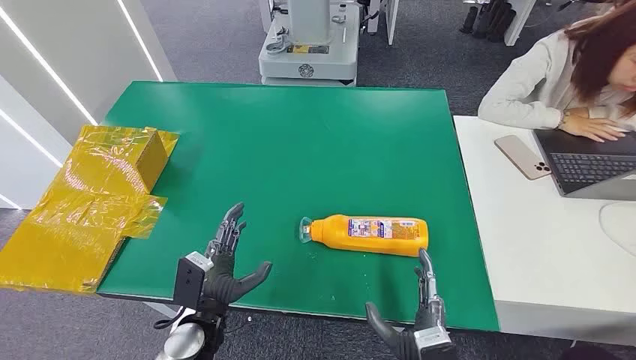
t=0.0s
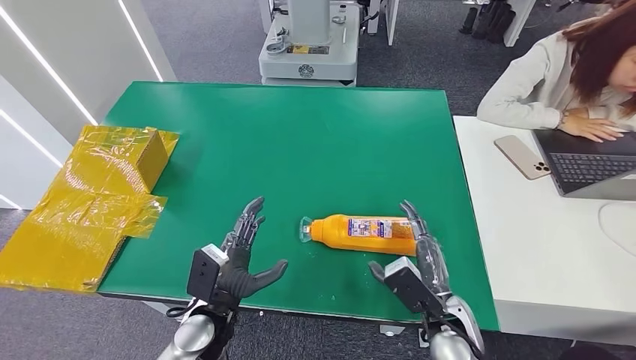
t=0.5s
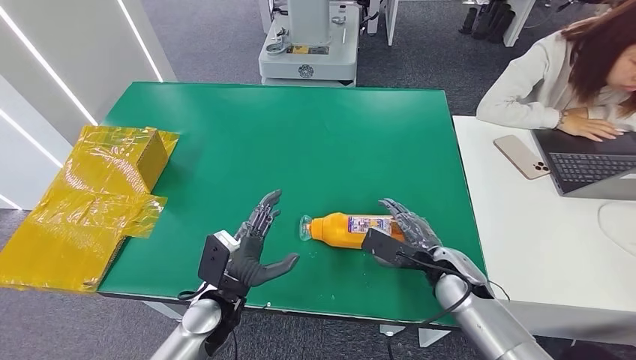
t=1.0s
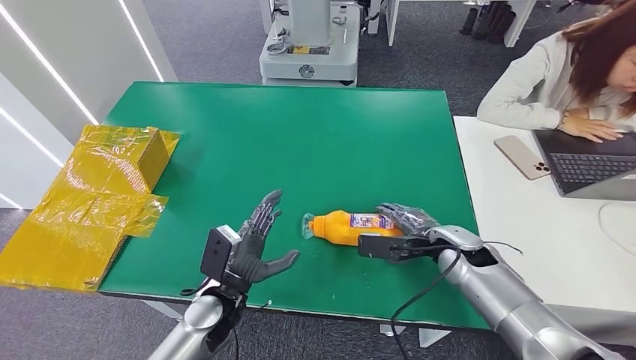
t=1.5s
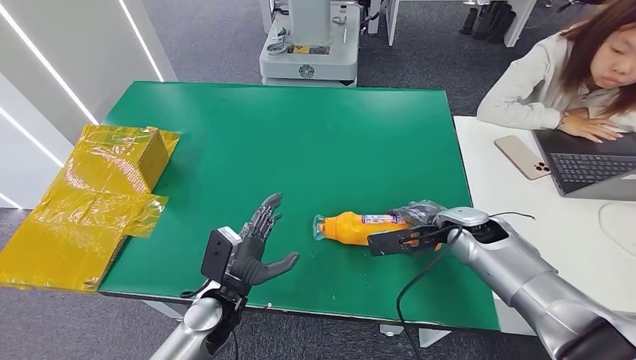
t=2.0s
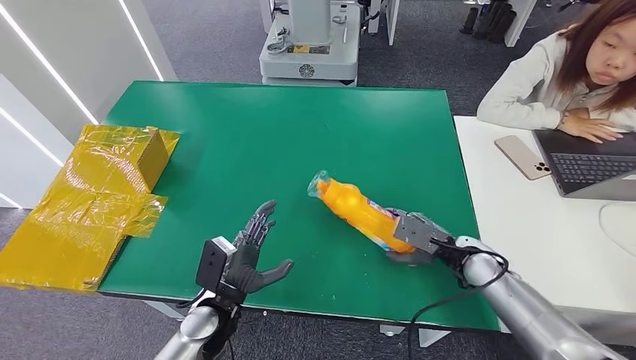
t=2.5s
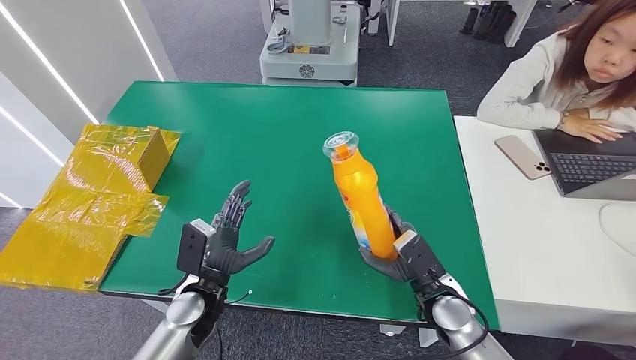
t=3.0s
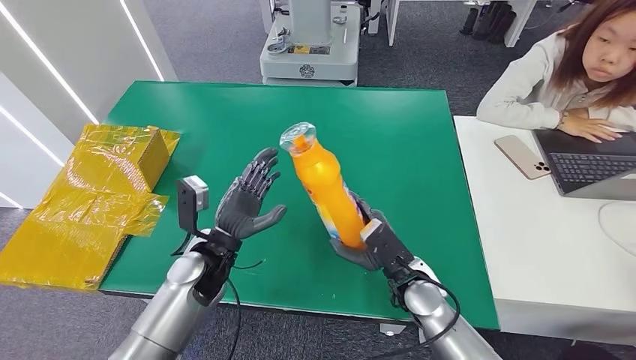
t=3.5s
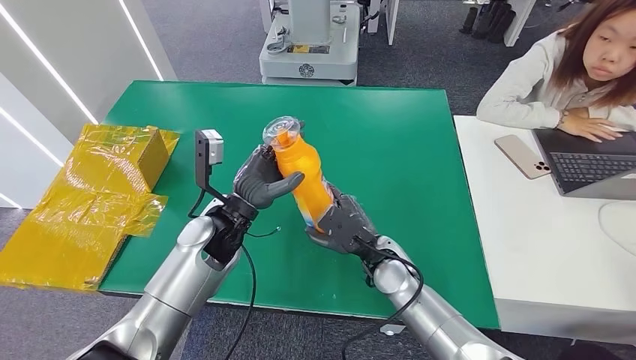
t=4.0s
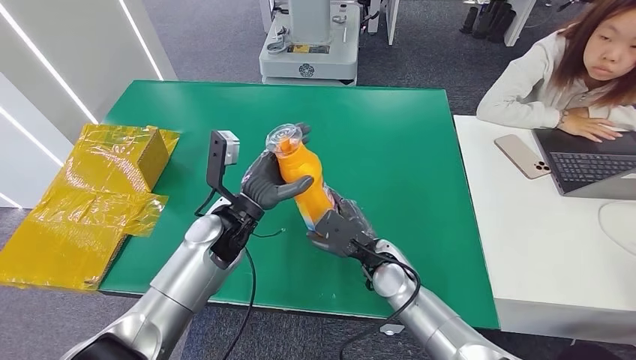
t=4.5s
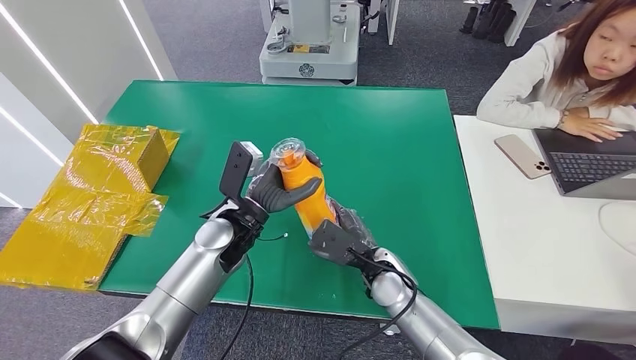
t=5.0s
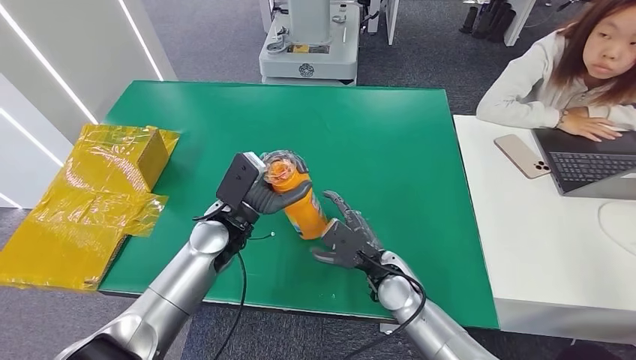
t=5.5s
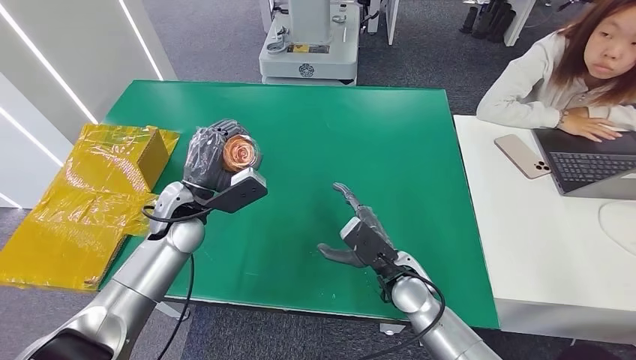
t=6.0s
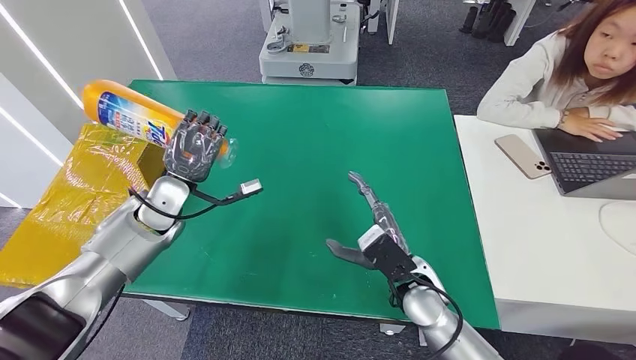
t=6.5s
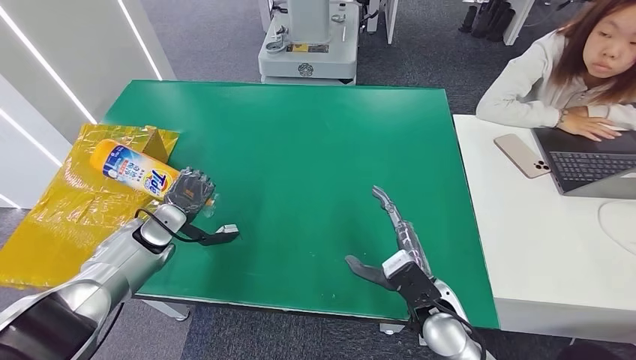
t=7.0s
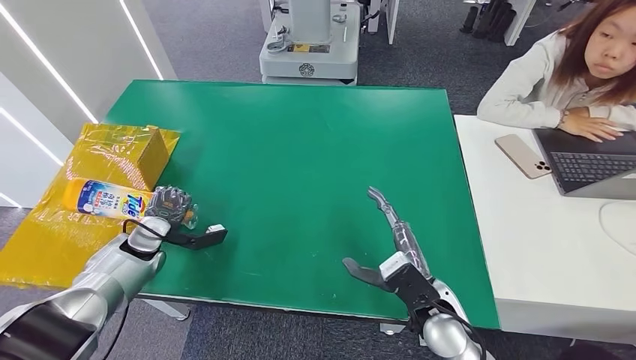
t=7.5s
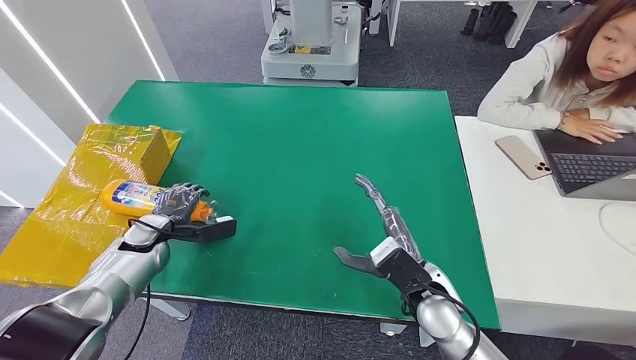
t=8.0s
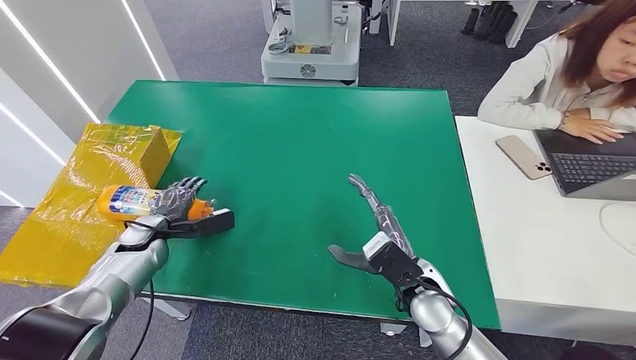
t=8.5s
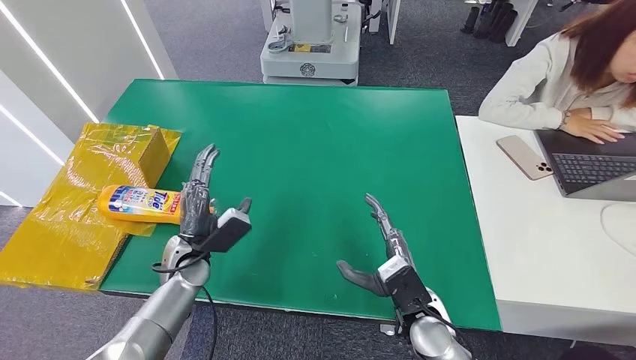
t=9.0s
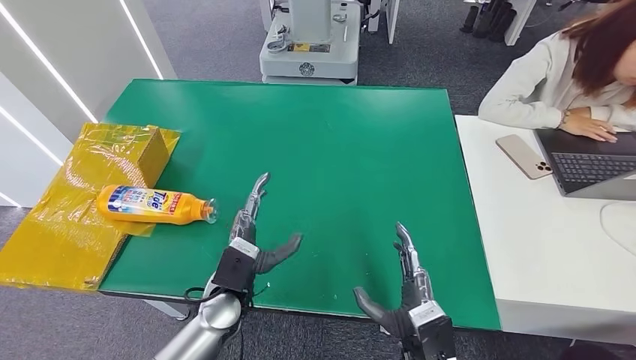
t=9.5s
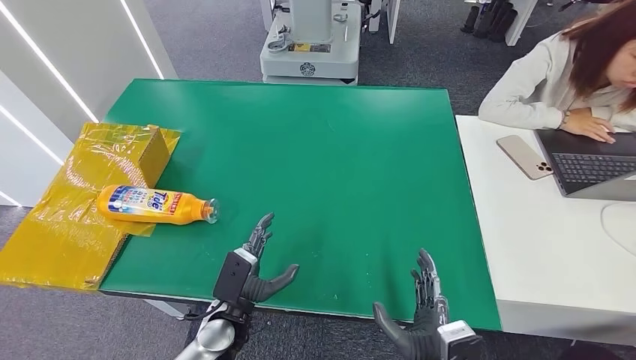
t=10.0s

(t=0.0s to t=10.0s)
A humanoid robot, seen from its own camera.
Step, t=0.0s - t=2.5s: Pick up the bottle from the table.
Step, t=3.5s - t=10.0s: Turn the bottle to the front side.
t=4.0s - t=6.0s: The left hand is displaced to the left by some 5 cm.
t=6.0s - t=8.0s: The right hand moves about 5 cm, while the left hand shifts about 15 cm to the left and downward.
t=8.0s - t=10.0s: The left hand moves to the right and backward, approximately 25 cm. Meanwhile the right hand is displaced backward and downward by some 15 cm.
